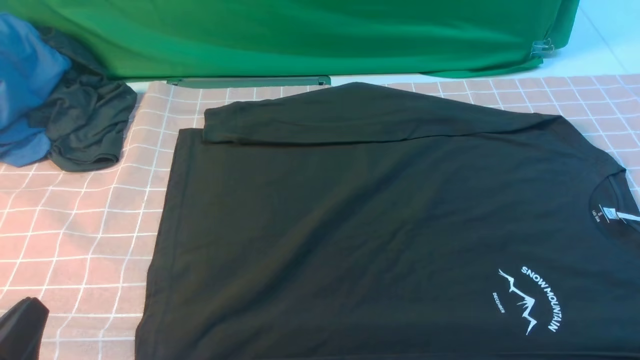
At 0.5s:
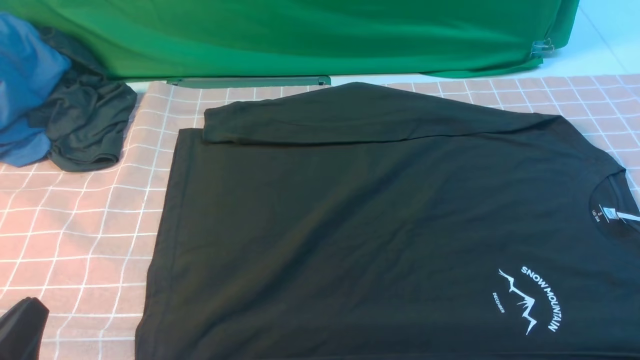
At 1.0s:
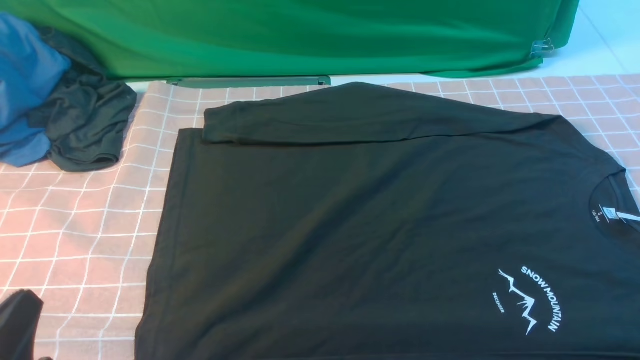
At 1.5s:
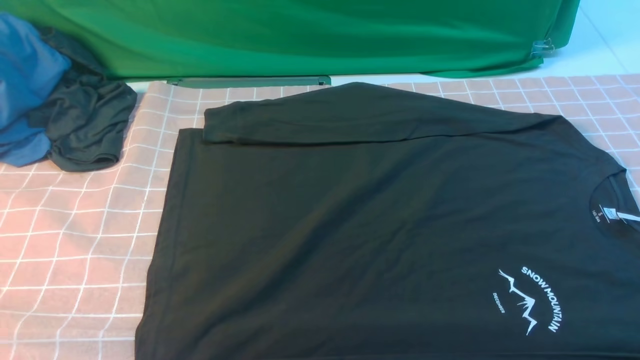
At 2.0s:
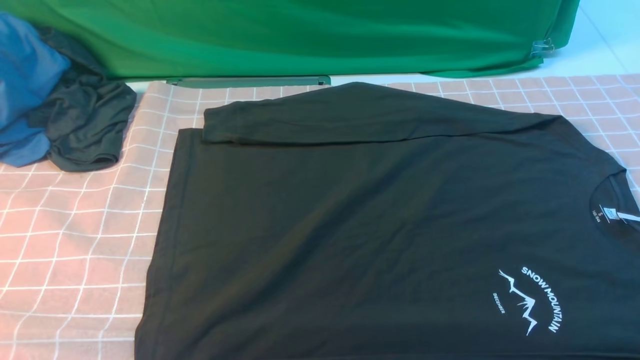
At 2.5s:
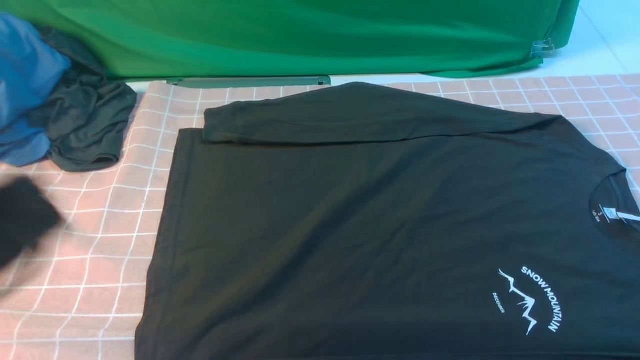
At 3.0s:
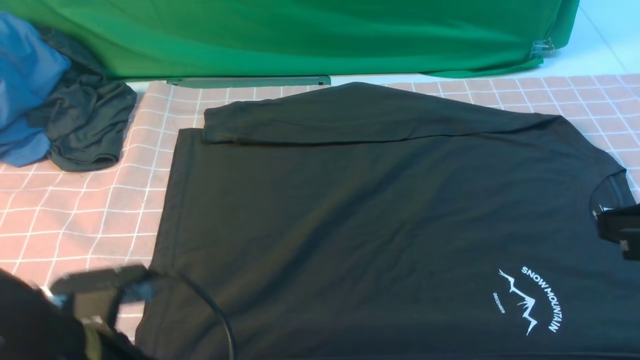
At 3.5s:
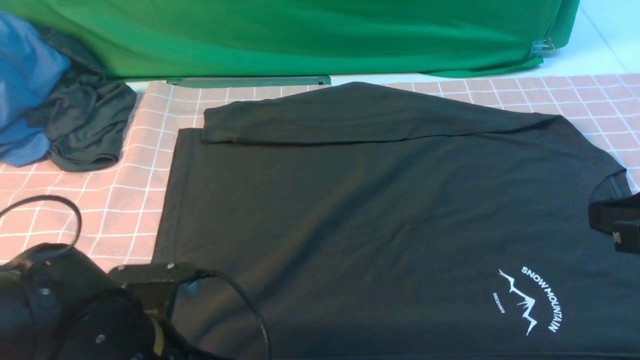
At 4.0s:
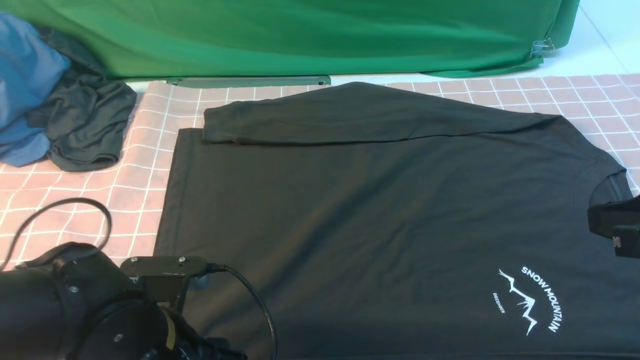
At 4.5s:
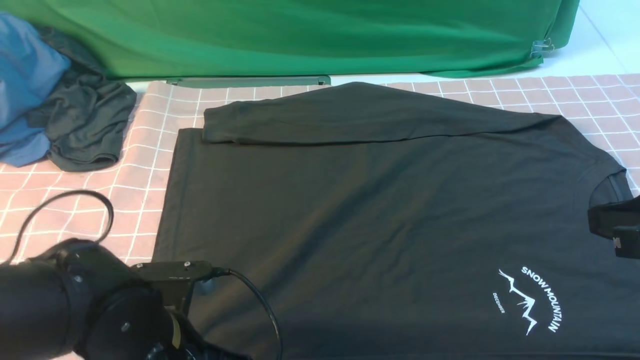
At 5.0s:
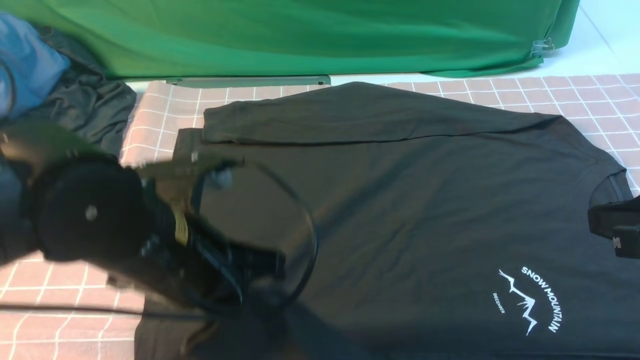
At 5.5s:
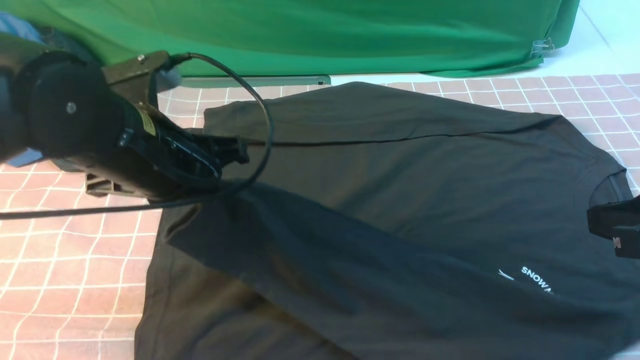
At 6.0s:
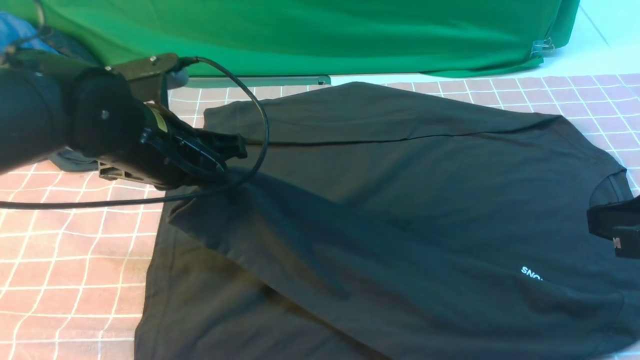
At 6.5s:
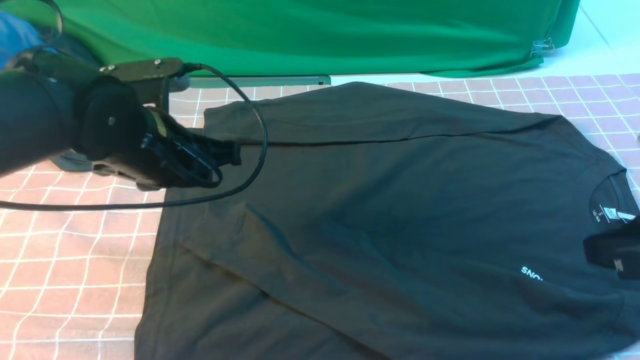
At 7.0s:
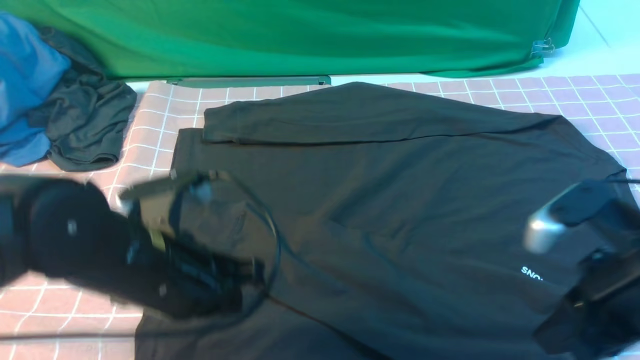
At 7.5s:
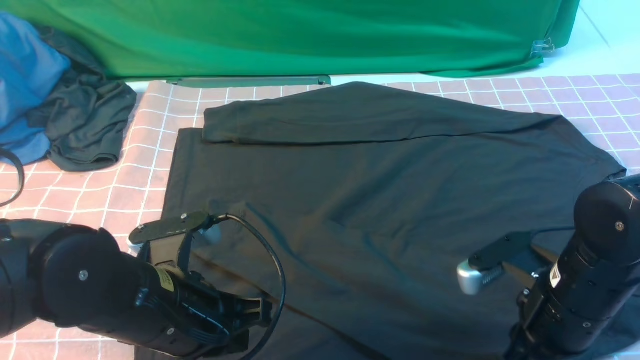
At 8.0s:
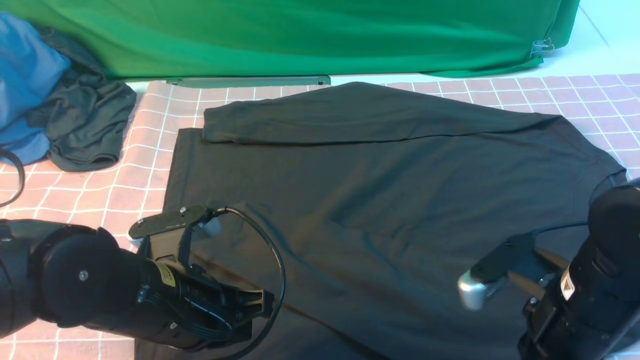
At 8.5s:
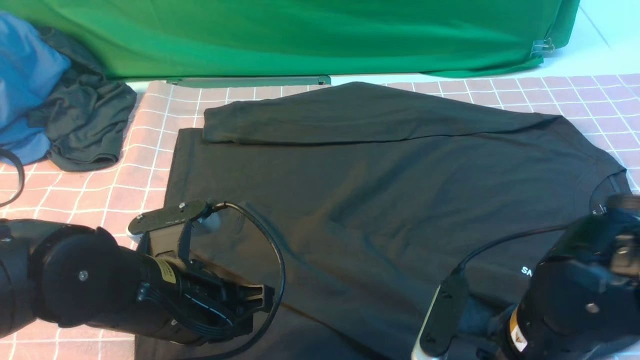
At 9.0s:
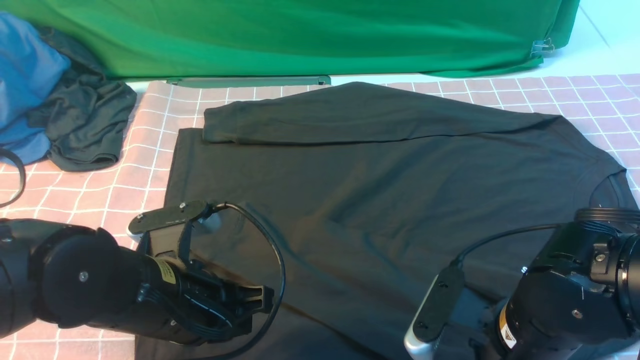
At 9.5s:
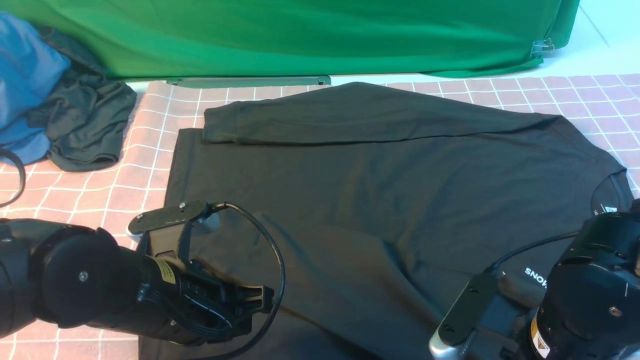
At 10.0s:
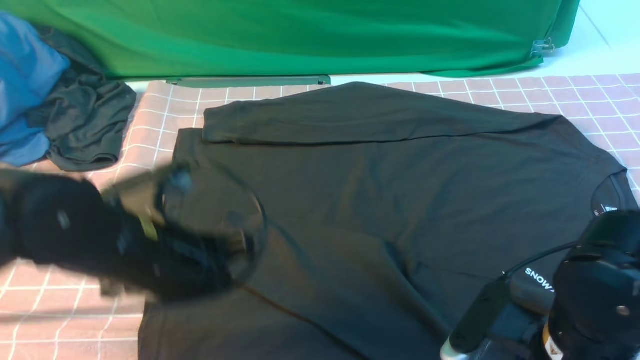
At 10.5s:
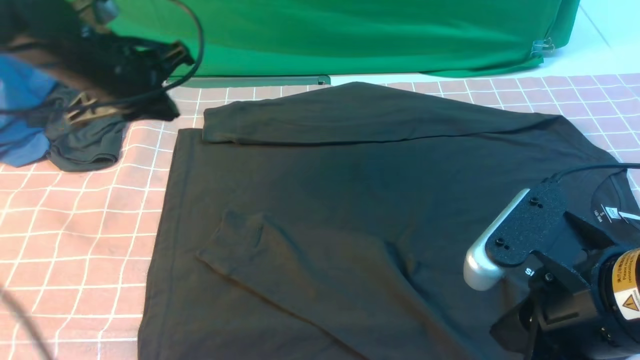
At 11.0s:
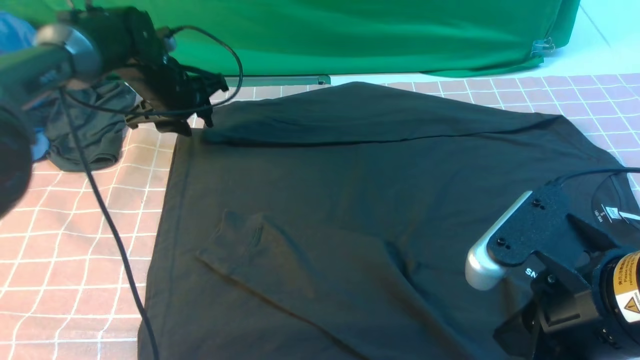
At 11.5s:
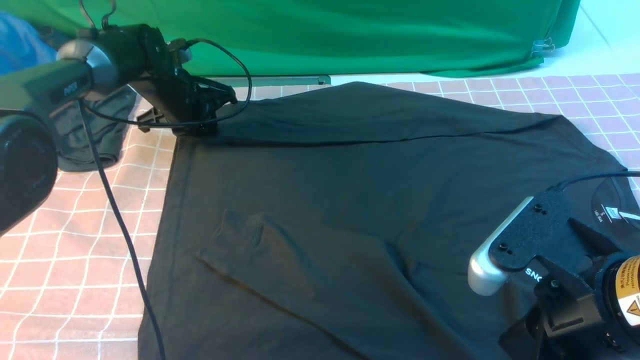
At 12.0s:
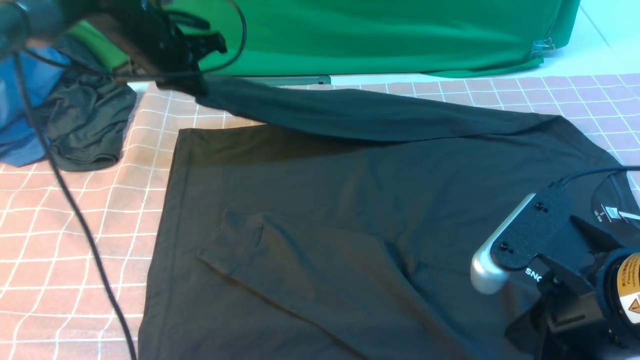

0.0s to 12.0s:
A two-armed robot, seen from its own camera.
Step, 0.0s to 4.5s: use the left arm to clamp the cuff closest to it.
Step, 5.0s to 6.5s: use the left arm to drag and place the cuff at the centered position on the left edge of the fabric.
0.0s to 2.0s: The left gripper travels upward by roughly 10 cm.
2.0s to 4.0s: The right gripper moves forward and upward, approximately 15 cm, while the left gripper shifts approximately 20 cm forward, to the right and downward, and opens up.
4.0s to 6.0s: The left gripper goes roughly 15 cm forward and upward, and closes up.
6.0s to 8.0s: The left gripper shifts approximately 15 cm backward and downward, while the right gripper moves downward and to the left, about 15 cm.
8.0s to 10.0s: The left gripper moves roughly 5 cm; the right gripper opens, then closes again.
10.0s to 12.0s: The left gripper is displaced forward by about 25 cm, and opens, then closes again, while the right gripper travels upward by approximately 5 cm, and closes up.

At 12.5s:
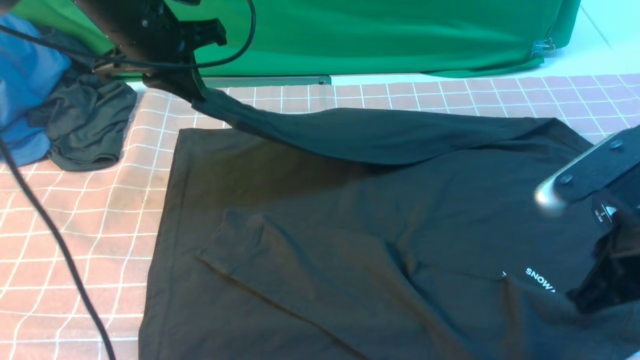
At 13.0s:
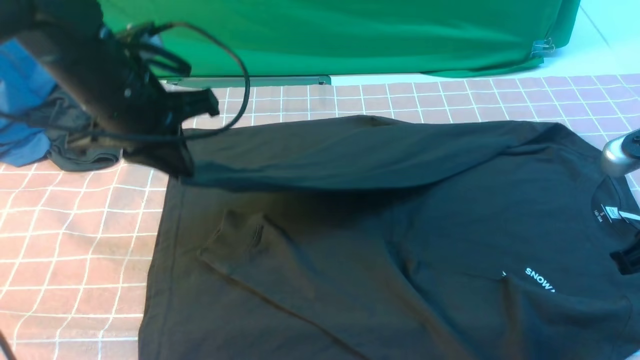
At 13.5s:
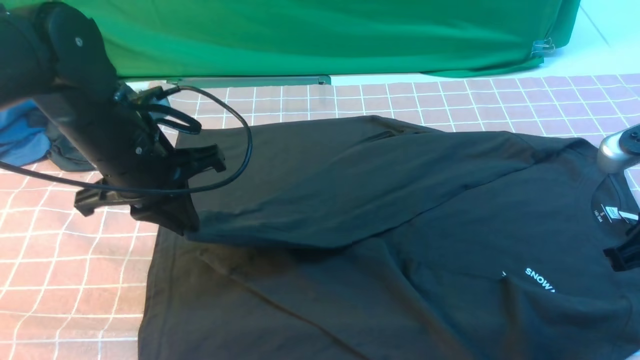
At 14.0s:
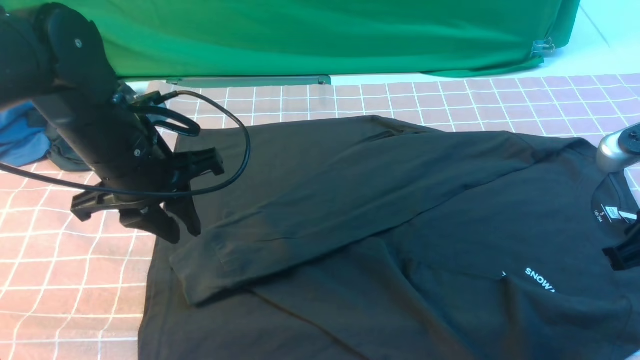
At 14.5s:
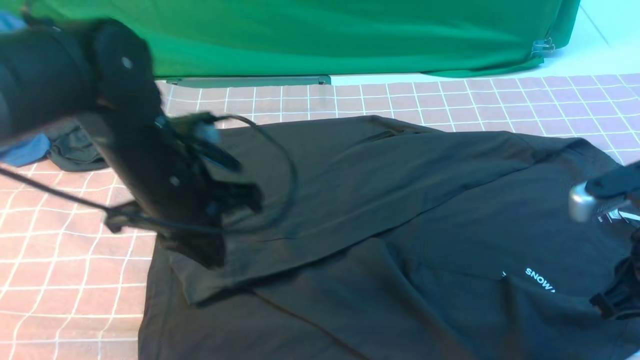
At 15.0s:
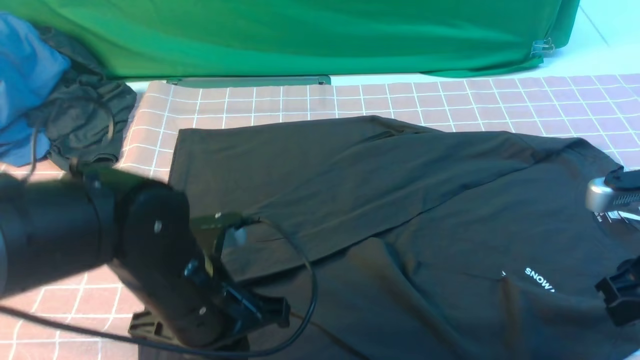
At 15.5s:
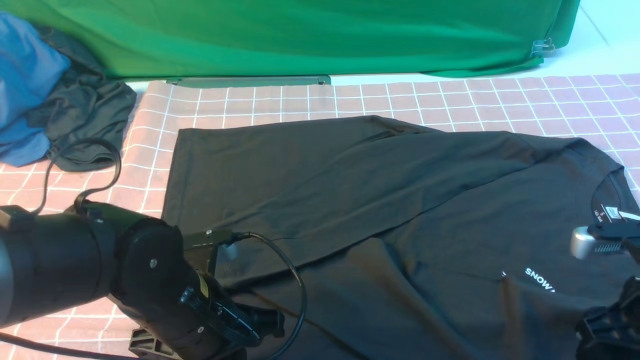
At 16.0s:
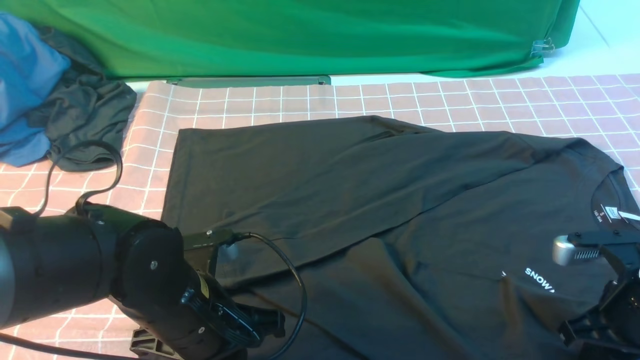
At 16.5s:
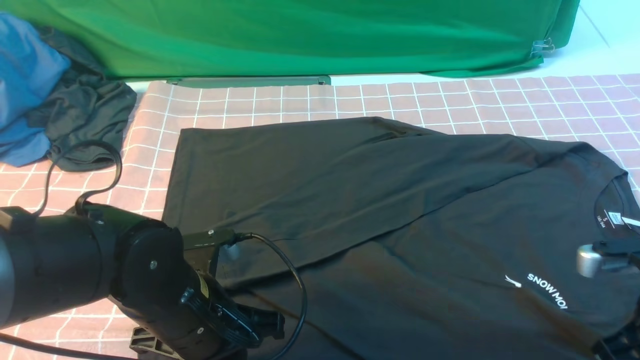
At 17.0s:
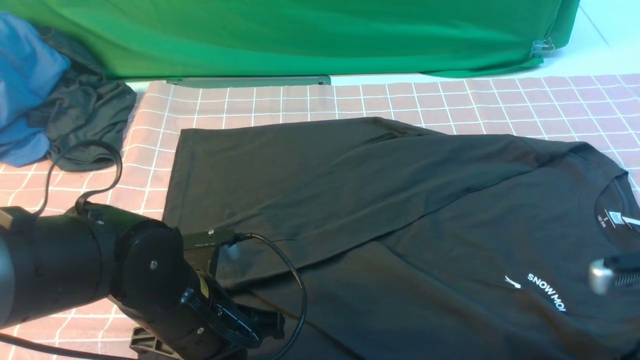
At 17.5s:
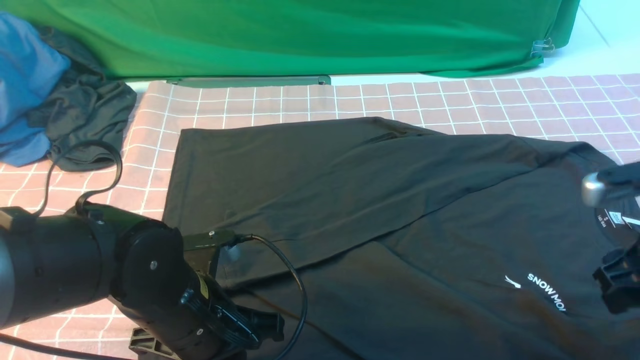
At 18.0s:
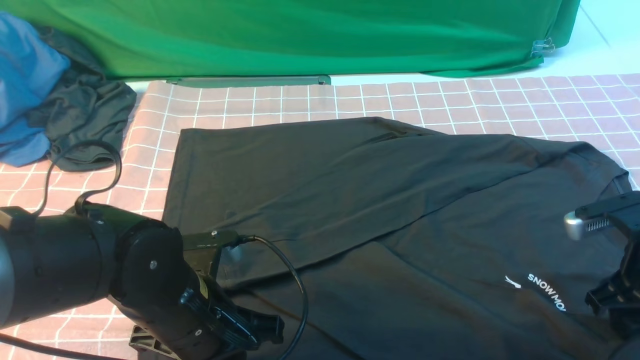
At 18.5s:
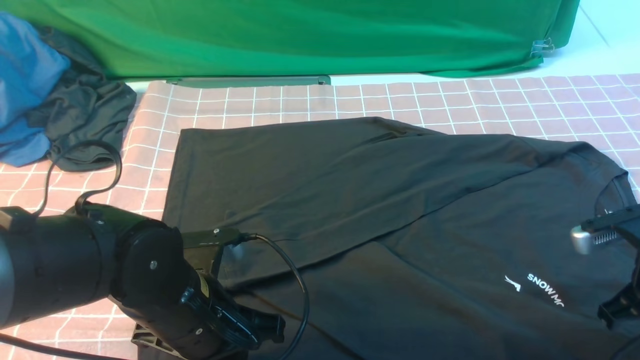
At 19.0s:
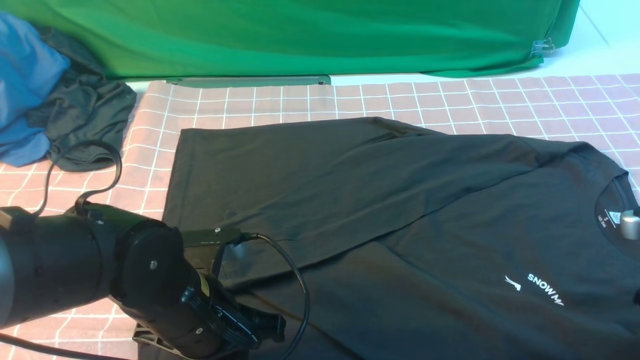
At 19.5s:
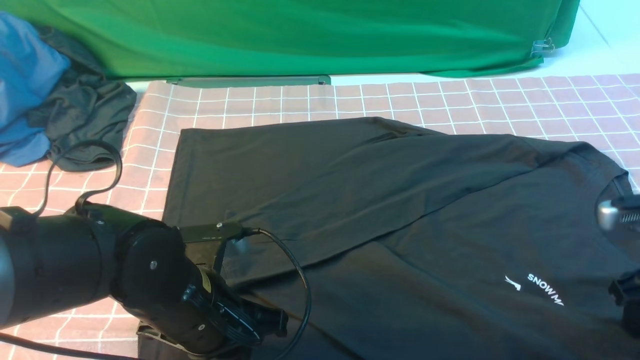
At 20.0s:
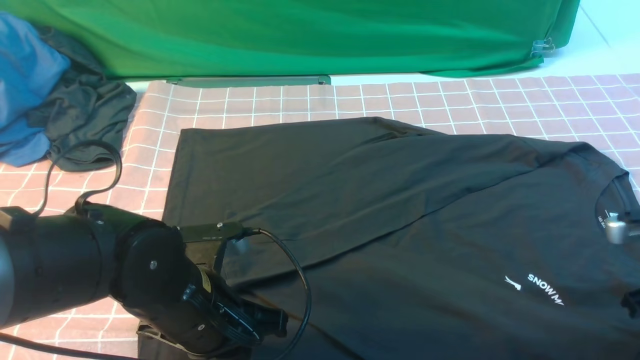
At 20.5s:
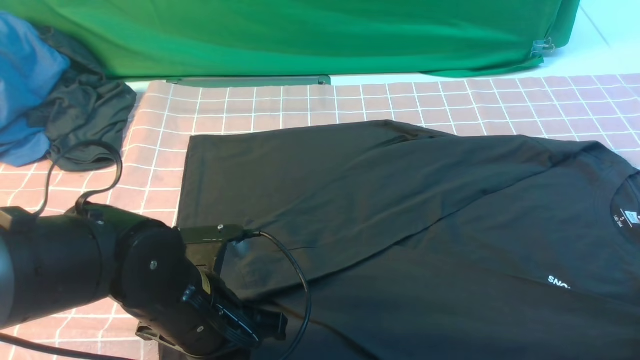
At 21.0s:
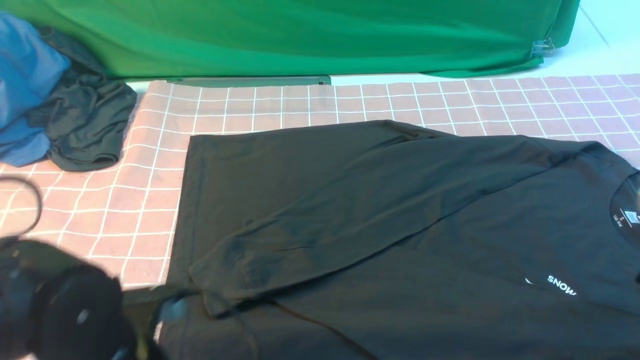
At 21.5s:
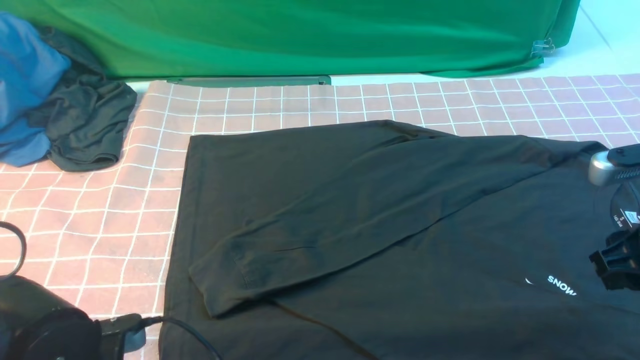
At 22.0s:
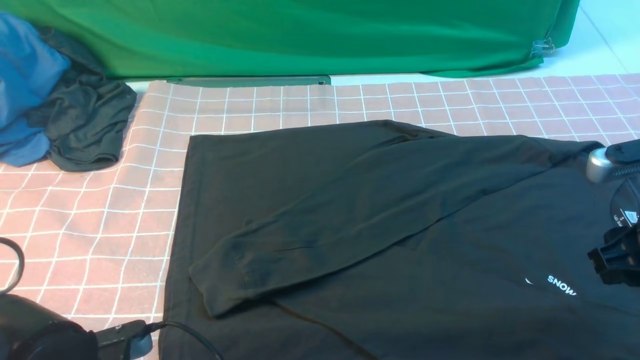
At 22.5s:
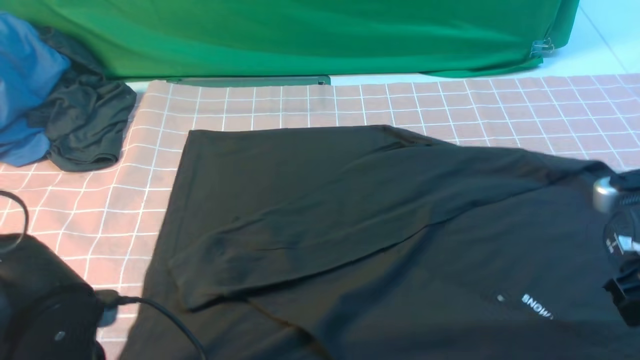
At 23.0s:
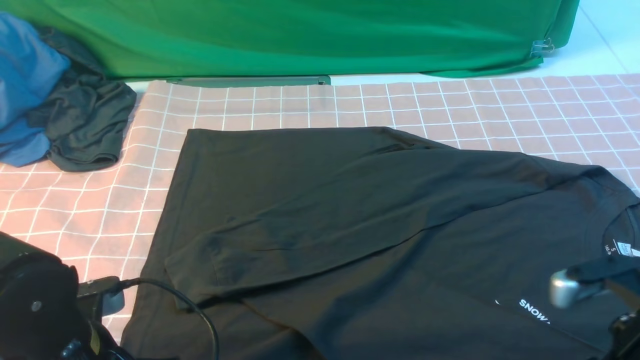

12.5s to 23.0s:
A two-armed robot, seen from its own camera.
12.5s to 14.5s: The right gripper shifts by some 5 cm. The left gripper moves backward, downward and to the right, some 15 cm.
14.5s to 16.5s: The right gripper heads downward, covering some 5 cm, and opens and closes again. The left gripper shifts about 10 cm downward and backward.
16.5s to 19.0s: The right gripper is displaced to the right by some 5 cm, and opens, then closes once more.
19.0s to 21.0s: The right gripper opens up, while the left gripper shifts about 5 cm backward.
21.0s to 23.0s: The right gripper is displaced to the left and backward by approximately 10 cm; the left gripper opens, then closes again.
